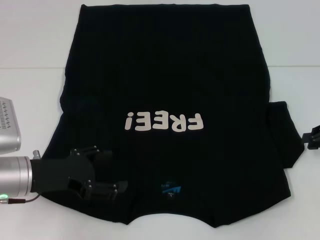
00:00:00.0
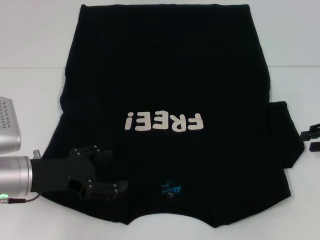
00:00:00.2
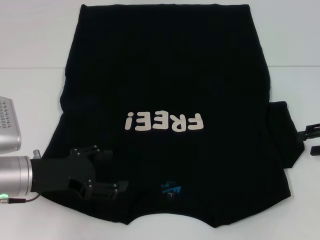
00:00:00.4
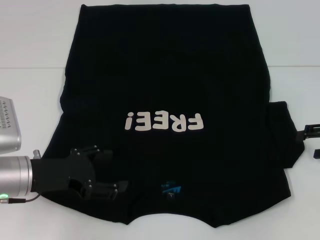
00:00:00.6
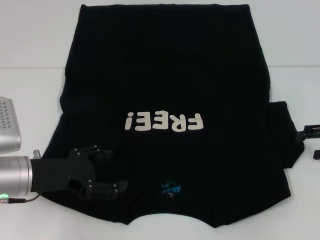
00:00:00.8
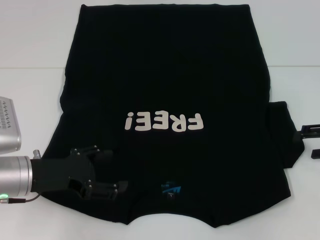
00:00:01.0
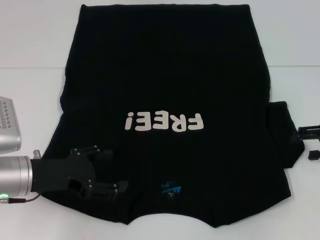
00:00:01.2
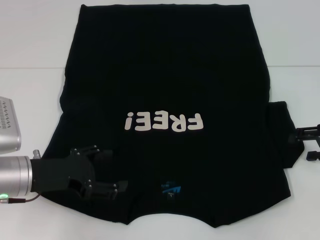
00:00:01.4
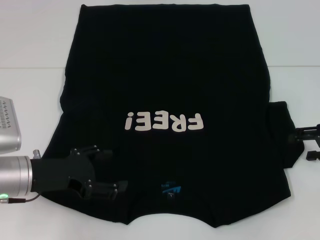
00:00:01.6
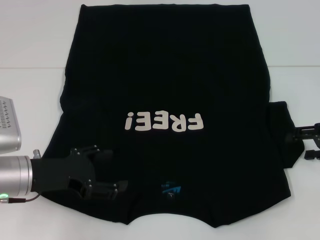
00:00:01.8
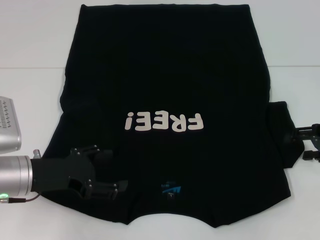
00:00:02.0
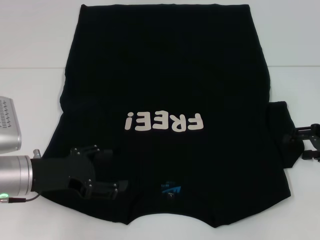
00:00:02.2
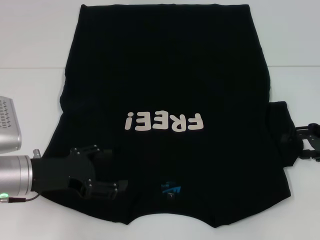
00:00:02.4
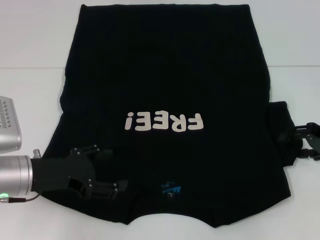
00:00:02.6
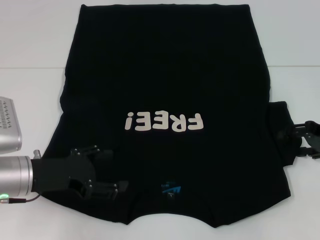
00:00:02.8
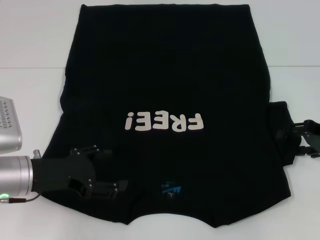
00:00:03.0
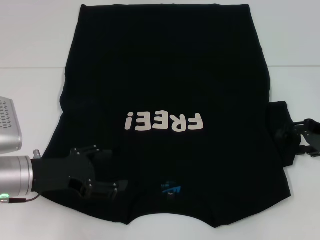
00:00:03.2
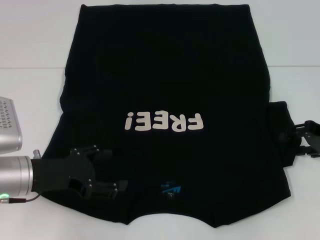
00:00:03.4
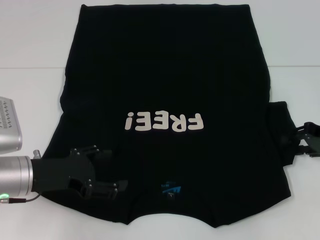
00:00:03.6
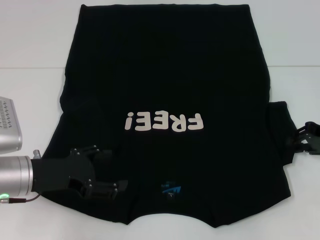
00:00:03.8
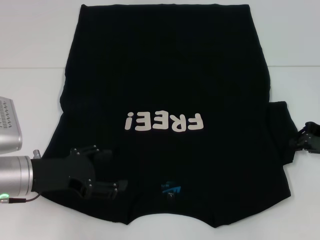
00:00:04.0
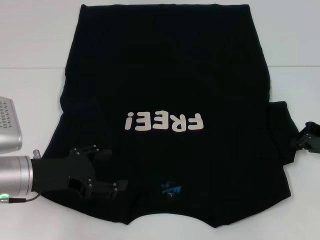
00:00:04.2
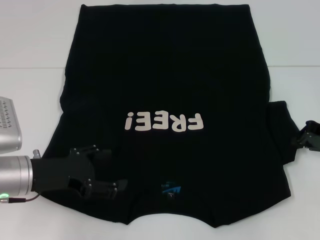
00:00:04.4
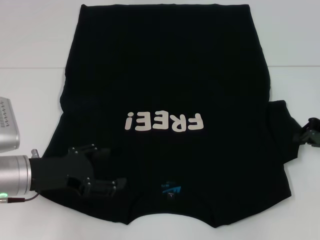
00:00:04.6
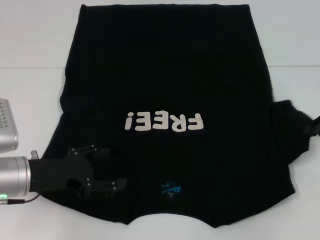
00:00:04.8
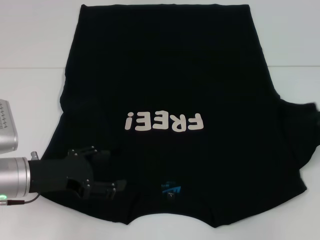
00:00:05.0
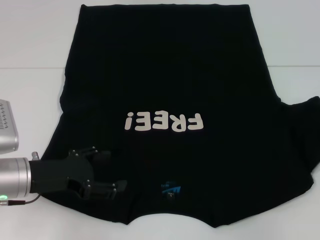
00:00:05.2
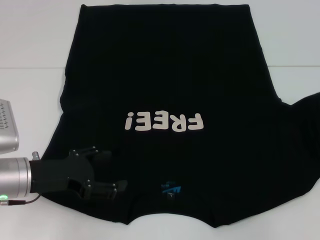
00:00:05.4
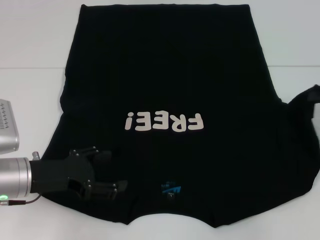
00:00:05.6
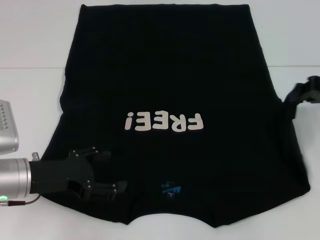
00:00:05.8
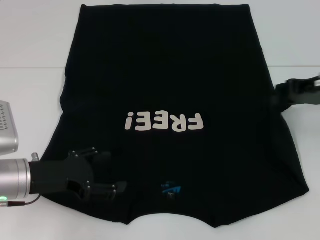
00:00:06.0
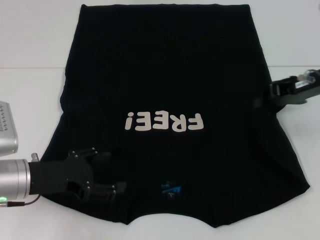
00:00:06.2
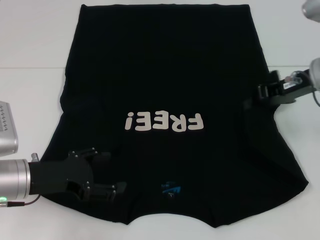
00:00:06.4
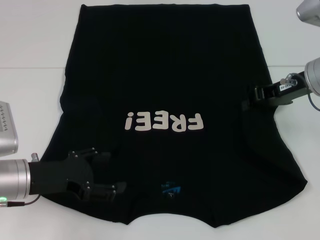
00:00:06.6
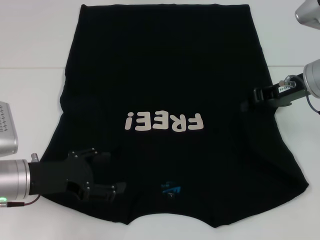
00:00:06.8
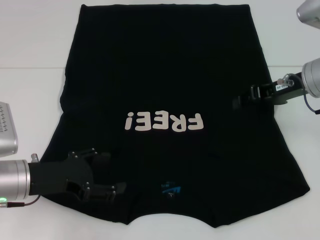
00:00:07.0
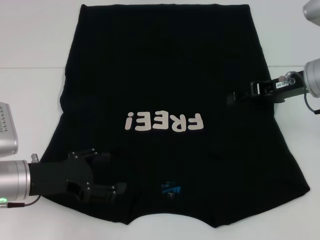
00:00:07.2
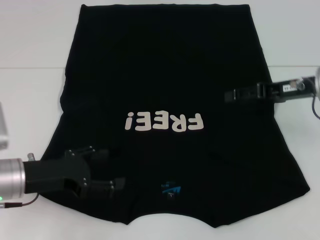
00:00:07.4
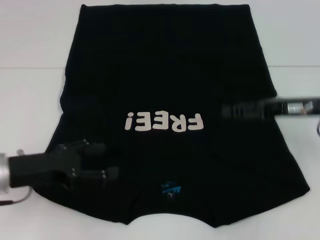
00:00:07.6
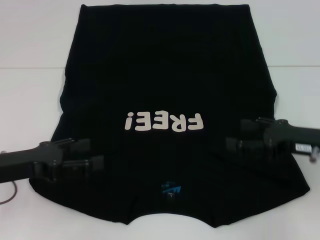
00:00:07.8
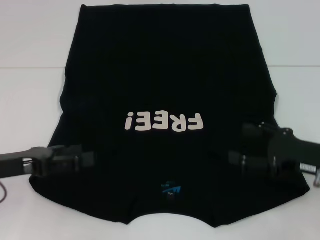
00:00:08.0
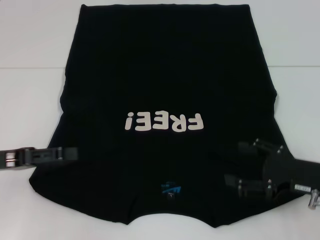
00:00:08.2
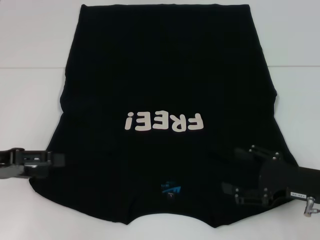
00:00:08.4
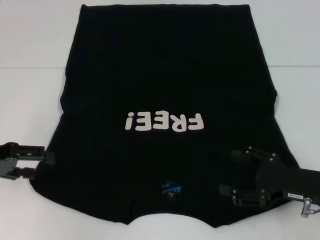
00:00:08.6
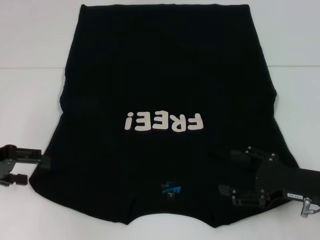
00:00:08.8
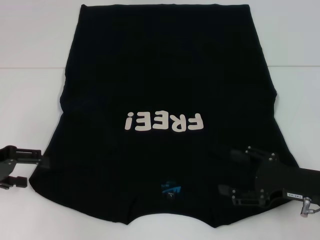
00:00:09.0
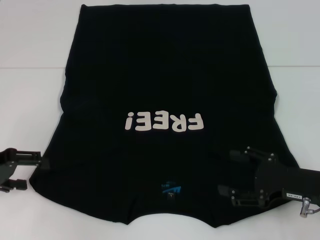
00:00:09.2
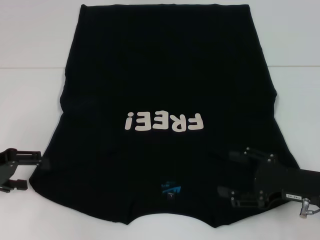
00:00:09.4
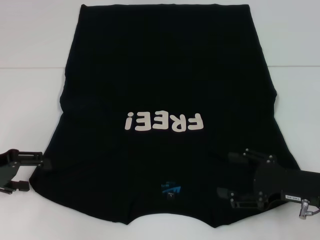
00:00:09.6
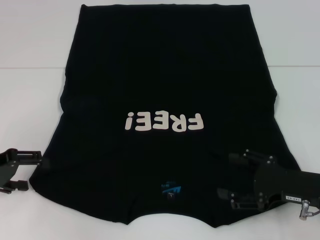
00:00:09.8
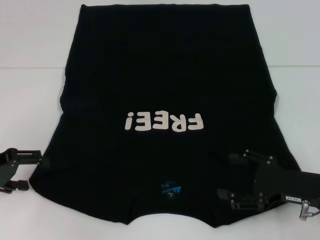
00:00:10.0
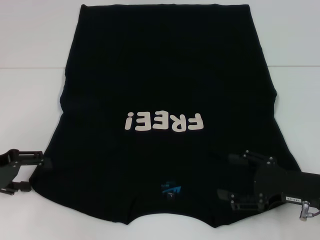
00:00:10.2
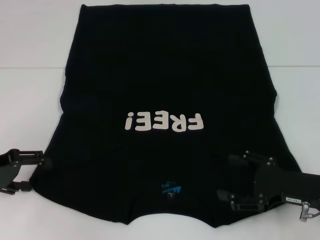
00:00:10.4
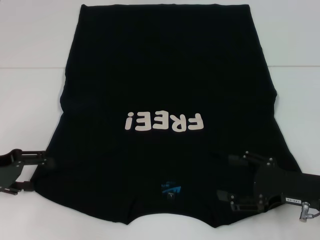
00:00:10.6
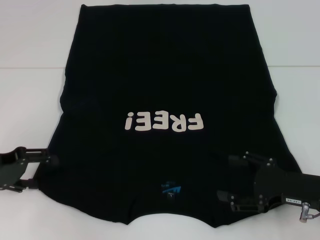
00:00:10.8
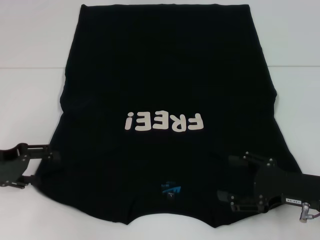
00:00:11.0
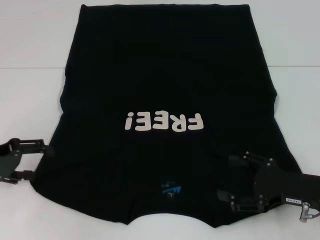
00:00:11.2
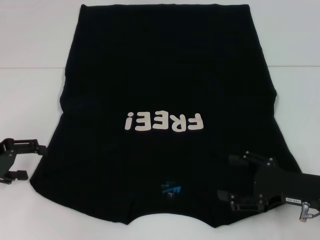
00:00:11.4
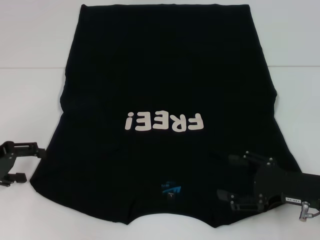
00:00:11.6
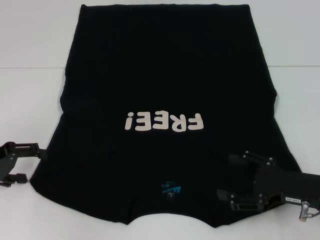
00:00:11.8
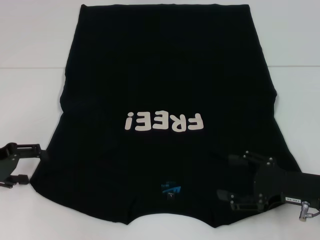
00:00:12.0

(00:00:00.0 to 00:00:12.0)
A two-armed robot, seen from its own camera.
Step, 00:00:00.0 - 00:00:06.6: Fold the bottom right sleeve with your right hand.
00:00:04.4 - 00:00:06.0: The right gripper moves upward, some 10 cm.
00:00:06.0 - 00:00:07.6: The right gripper changes place by roughly 5 cm, and opens its fingers.
00:00:07.6 - 00:00:09.0: The left gripper goes some 10 cm to the left. Meanwhile the right gripper heads backward and downward, covering some 10 cm, and opens its fingers.
00:00:09.0 - 00:00:10.4: The grippers make only small movements.
00:00:10.4 - 00:00:12.0: Both grippers stay about where they are.

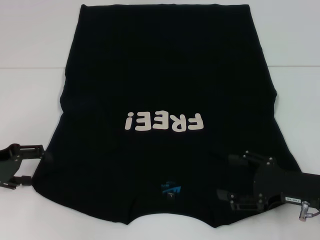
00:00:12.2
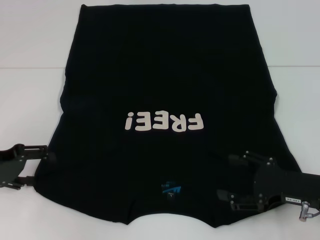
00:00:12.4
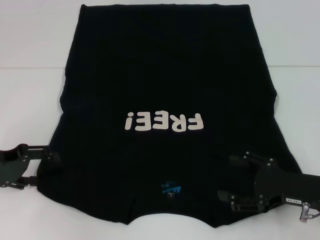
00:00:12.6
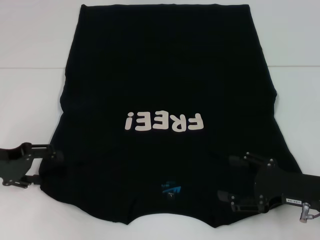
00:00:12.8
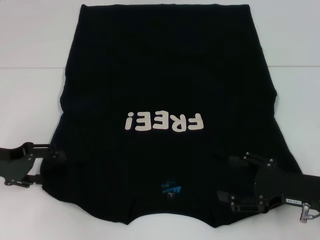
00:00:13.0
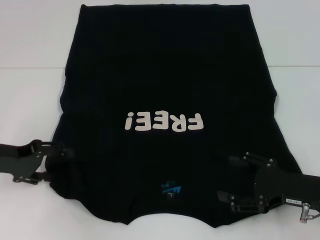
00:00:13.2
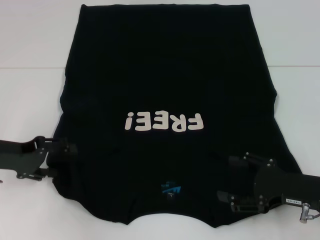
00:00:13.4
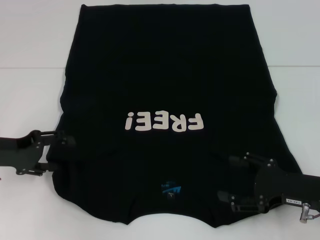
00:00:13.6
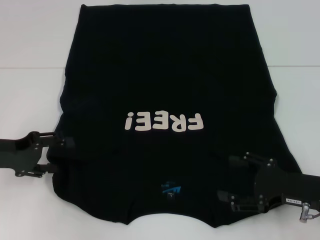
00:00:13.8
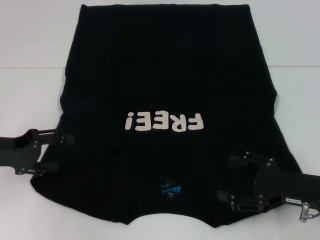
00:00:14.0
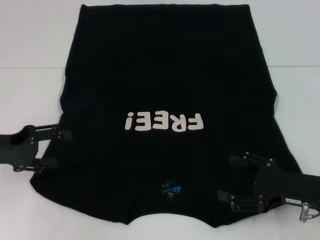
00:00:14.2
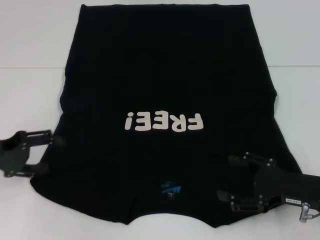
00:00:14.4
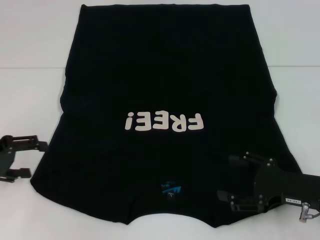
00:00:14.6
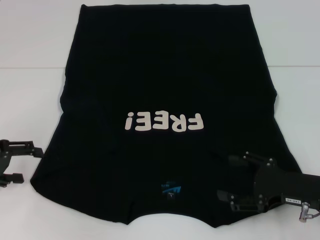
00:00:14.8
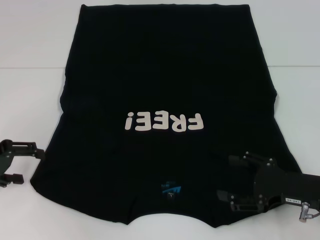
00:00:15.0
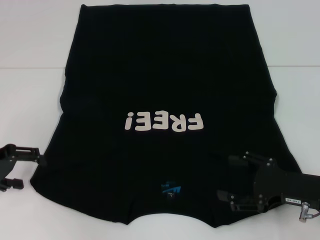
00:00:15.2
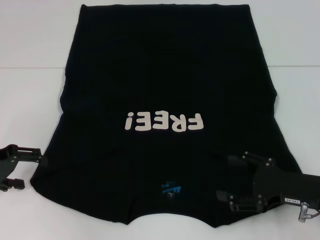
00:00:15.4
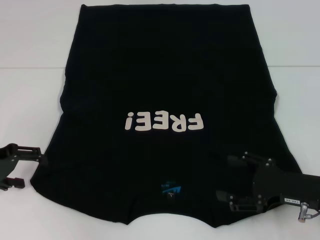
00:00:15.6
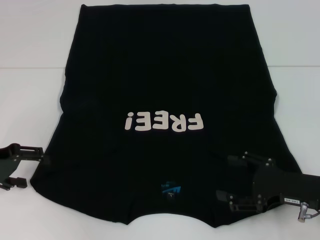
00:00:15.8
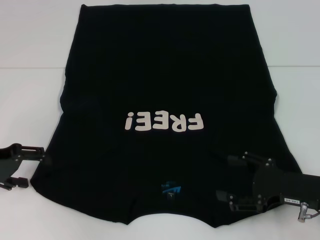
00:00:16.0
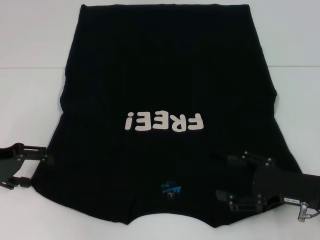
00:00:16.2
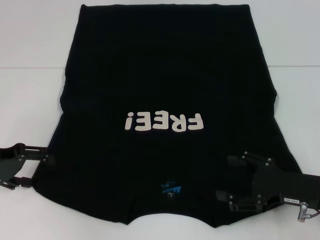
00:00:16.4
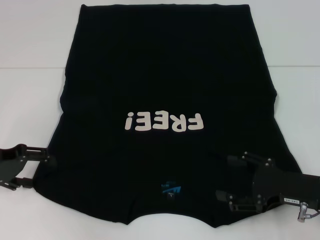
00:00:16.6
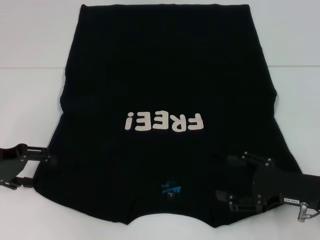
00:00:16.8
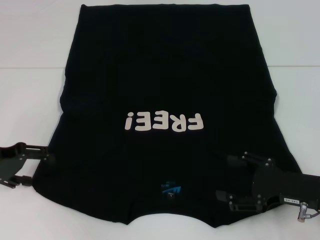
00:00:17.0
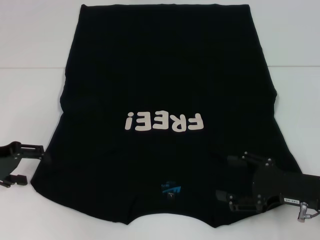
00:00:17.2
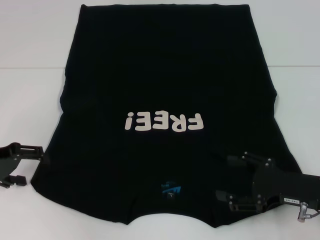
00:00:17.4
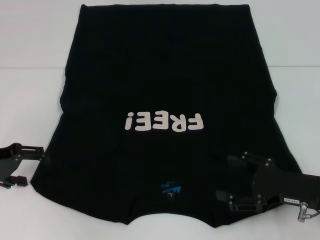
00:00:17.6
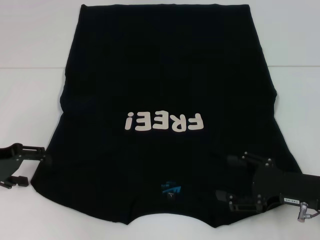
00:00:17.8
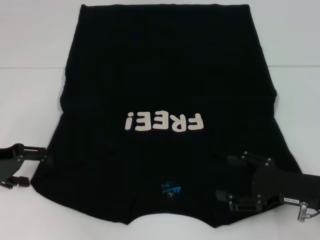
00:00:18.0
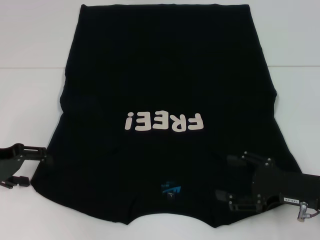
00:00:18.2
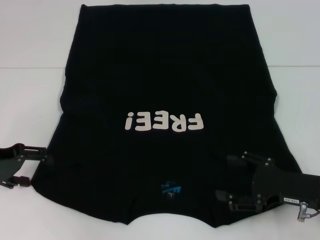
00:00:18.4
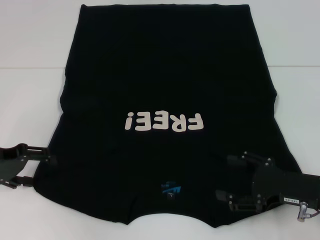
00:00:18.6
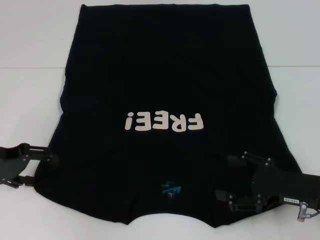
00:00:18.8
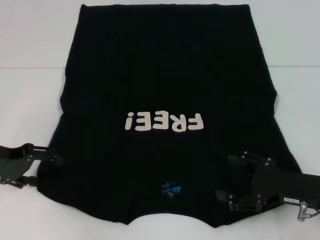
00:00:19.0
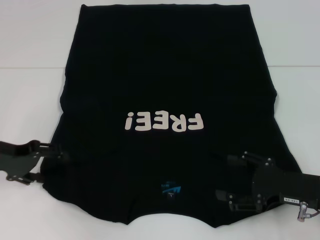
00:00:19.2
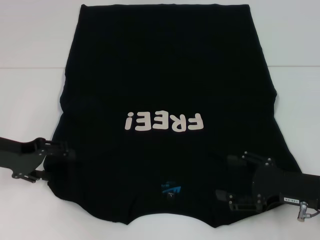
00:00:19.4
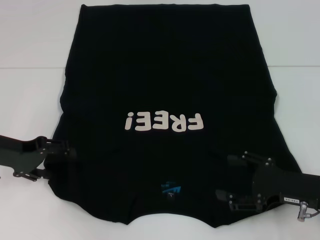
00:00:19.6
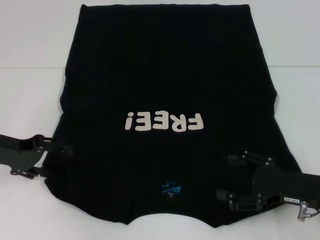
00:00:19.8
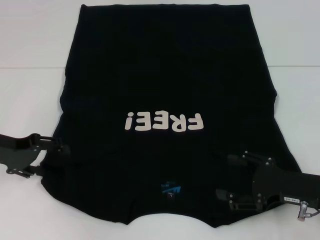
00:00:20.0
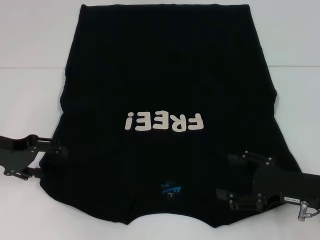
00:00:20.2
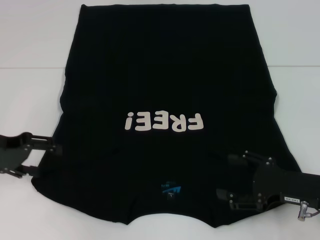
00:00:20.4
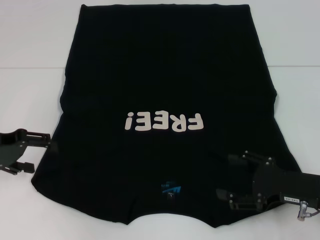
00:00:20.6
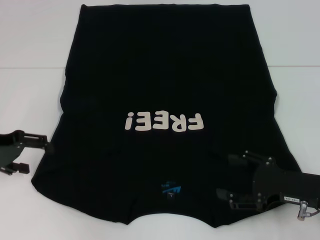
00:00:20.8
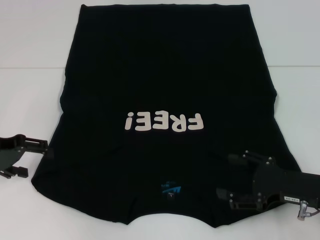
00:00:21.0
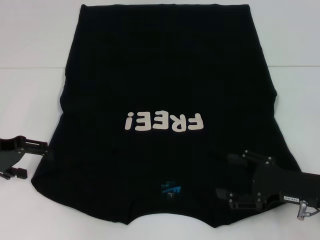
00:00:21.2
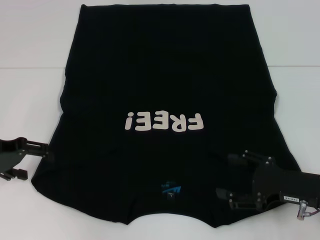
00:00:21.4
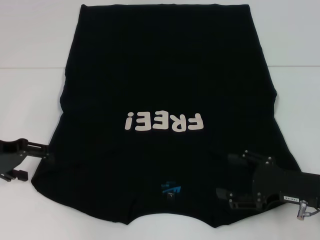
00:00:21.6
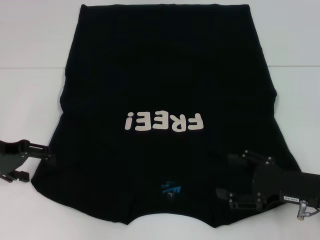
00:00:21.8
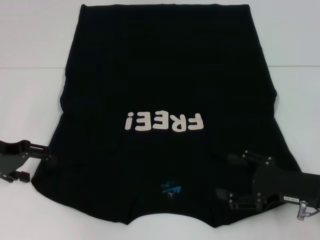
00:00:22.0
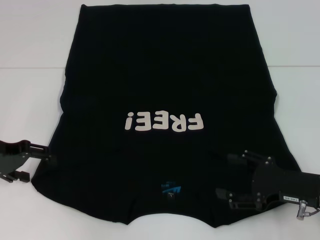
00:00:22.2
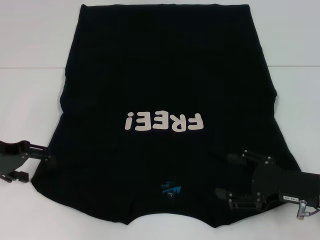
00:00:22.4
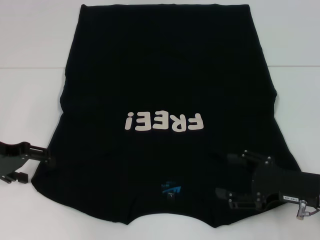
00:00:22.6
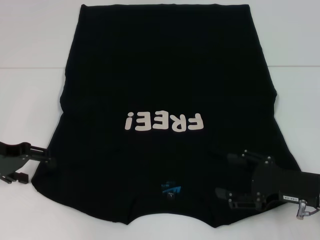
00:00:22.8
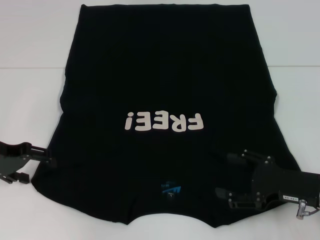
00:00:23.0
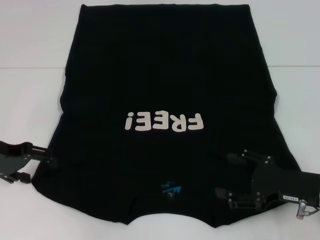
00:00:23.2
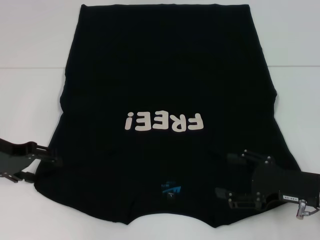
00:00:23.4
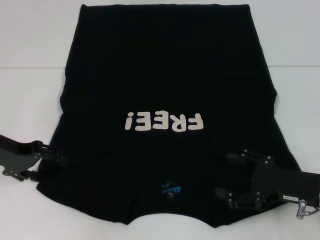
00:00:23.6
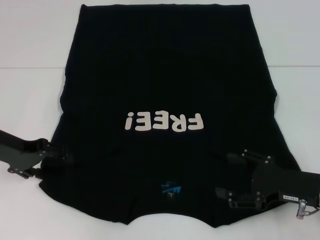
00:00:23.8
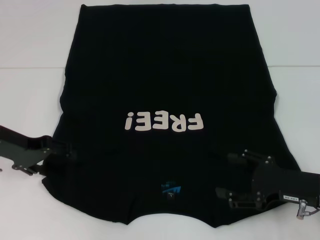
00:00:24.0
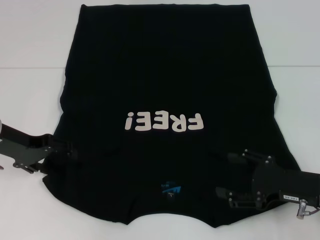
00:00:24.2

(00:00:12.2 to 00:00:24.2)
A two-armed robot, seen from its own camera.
00:00:12.2 - 00:00:16.6: The grippers make only small movements.
00:00:16.6 - 00:00:18.2: Neither gripper changes place.
00:00:18.2 - 00:00:21.2: The grippers stay close to where they were, moving slightly.
00:00:21.2 - 00:00:22.6: Neither gripper changes place.
00:00:22.6 - 00:00:24.2: There are only small adjustments of the grippers.
